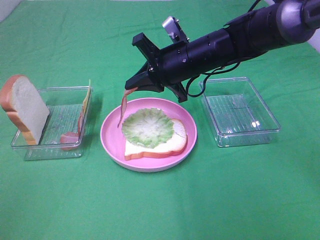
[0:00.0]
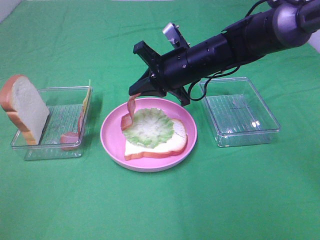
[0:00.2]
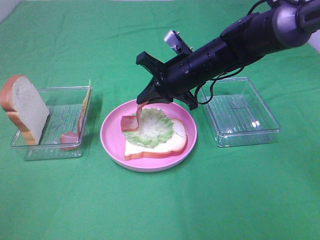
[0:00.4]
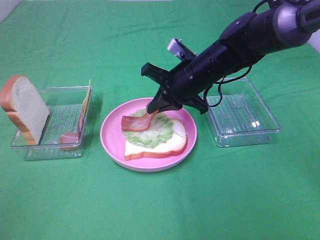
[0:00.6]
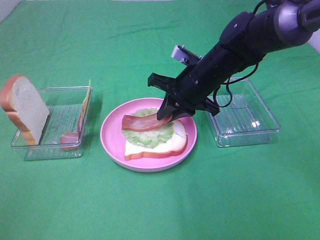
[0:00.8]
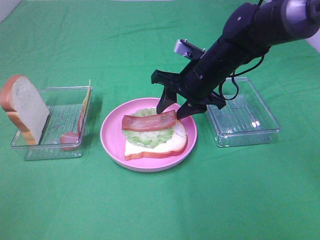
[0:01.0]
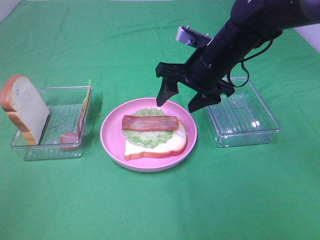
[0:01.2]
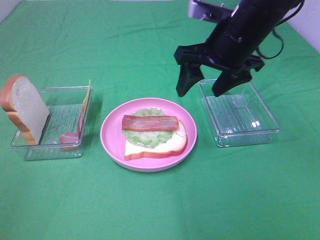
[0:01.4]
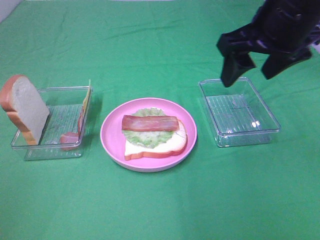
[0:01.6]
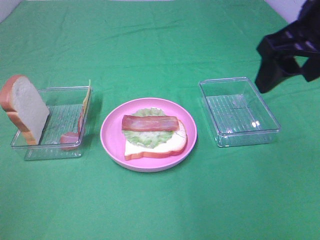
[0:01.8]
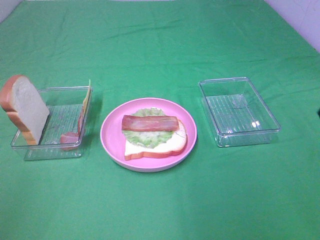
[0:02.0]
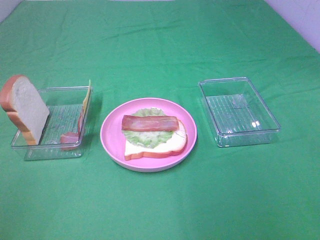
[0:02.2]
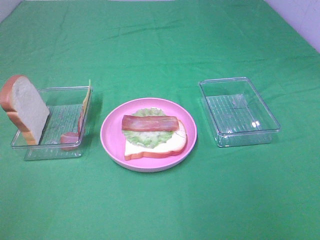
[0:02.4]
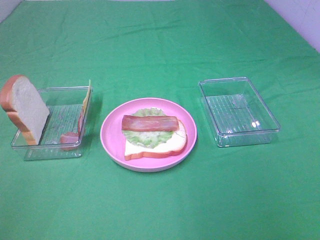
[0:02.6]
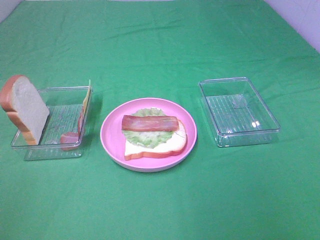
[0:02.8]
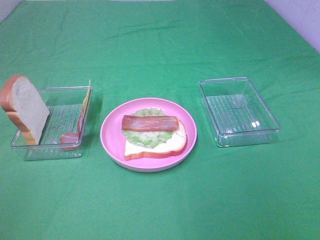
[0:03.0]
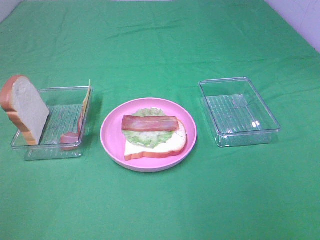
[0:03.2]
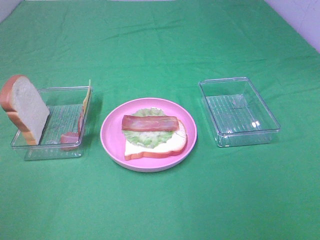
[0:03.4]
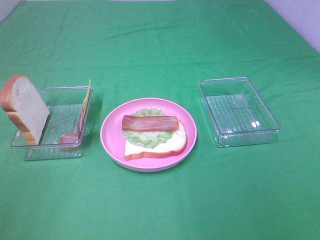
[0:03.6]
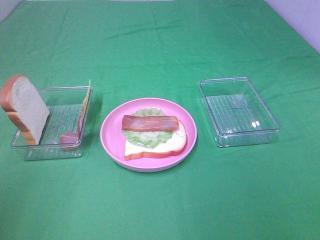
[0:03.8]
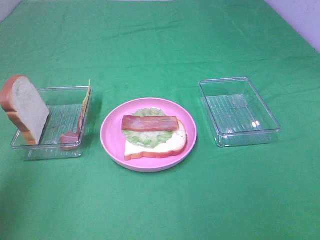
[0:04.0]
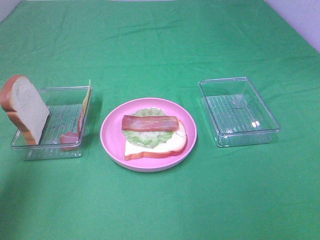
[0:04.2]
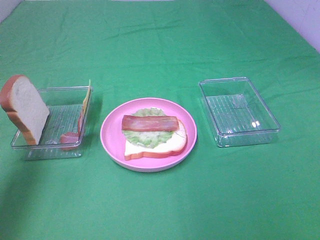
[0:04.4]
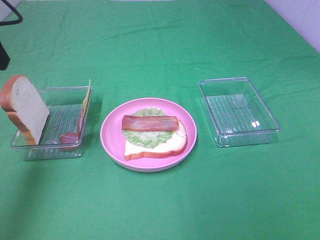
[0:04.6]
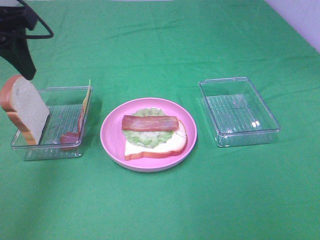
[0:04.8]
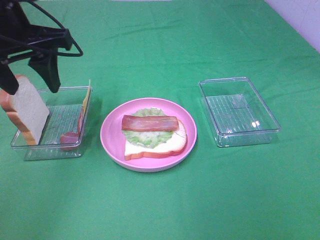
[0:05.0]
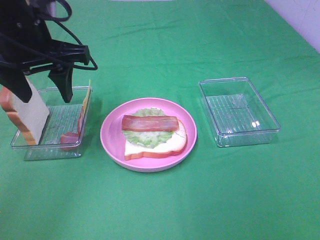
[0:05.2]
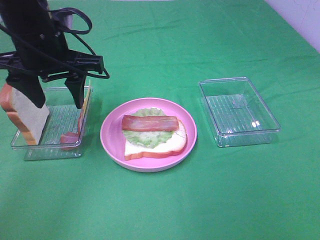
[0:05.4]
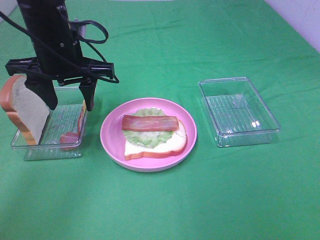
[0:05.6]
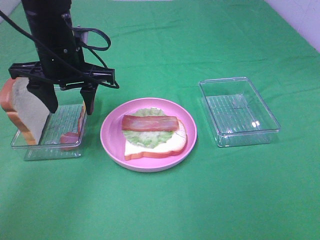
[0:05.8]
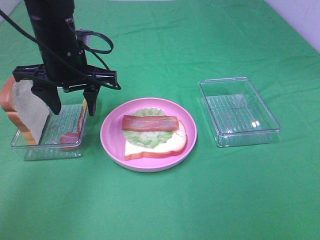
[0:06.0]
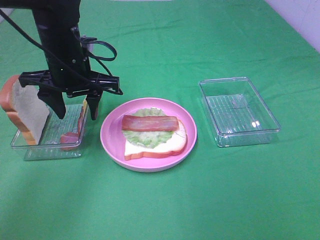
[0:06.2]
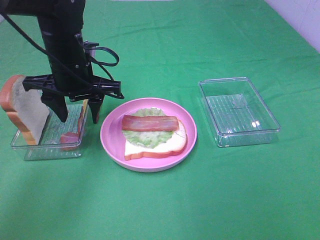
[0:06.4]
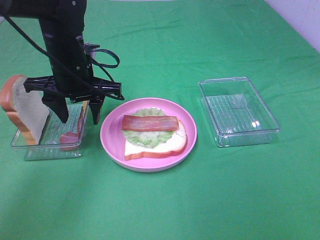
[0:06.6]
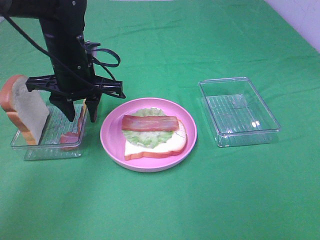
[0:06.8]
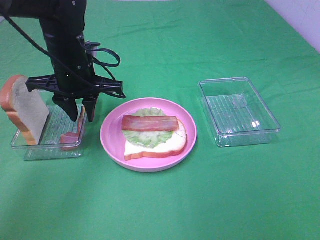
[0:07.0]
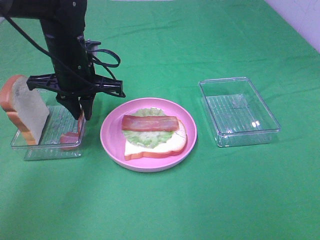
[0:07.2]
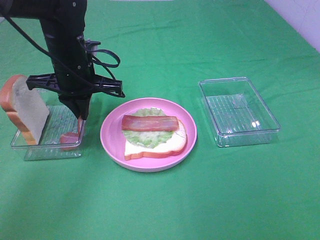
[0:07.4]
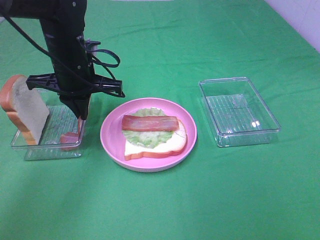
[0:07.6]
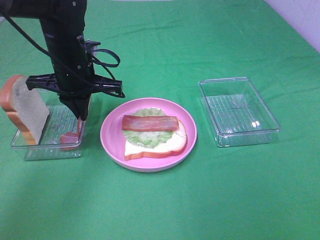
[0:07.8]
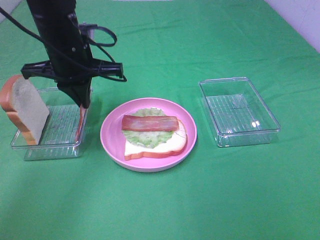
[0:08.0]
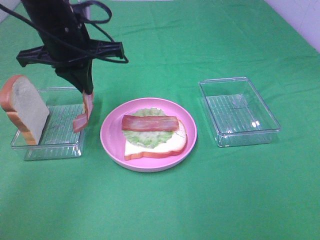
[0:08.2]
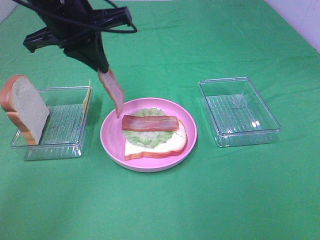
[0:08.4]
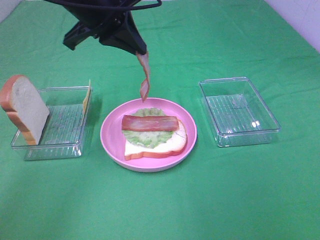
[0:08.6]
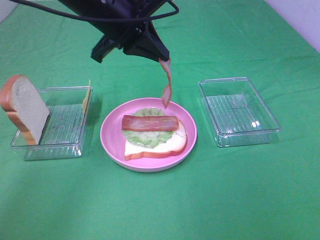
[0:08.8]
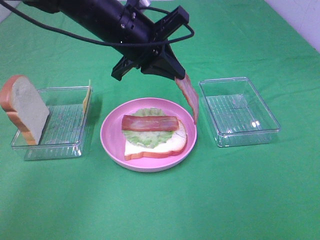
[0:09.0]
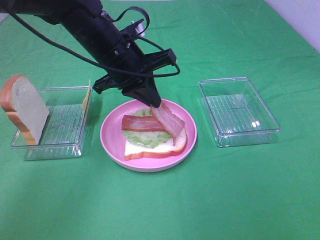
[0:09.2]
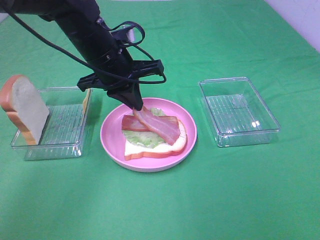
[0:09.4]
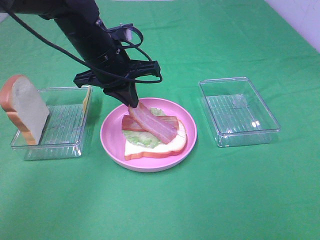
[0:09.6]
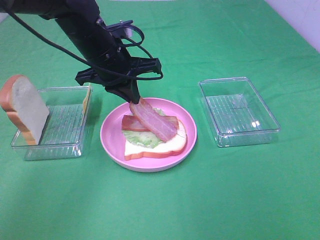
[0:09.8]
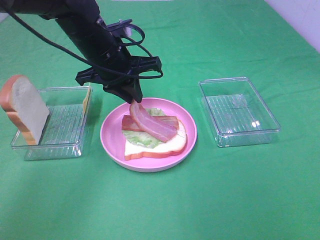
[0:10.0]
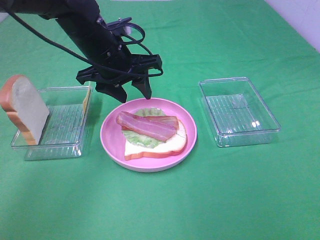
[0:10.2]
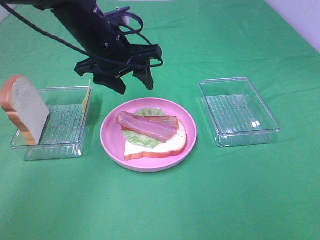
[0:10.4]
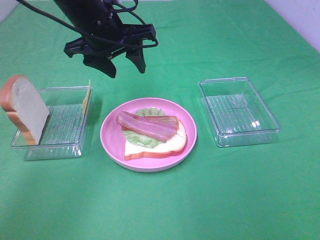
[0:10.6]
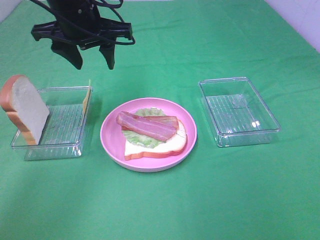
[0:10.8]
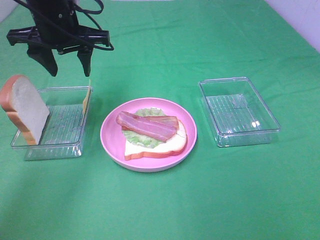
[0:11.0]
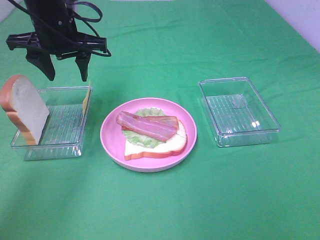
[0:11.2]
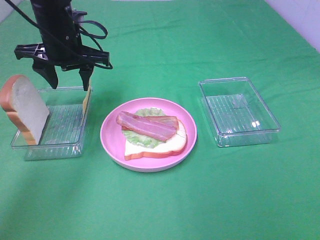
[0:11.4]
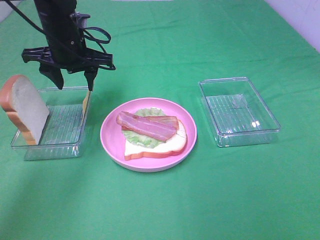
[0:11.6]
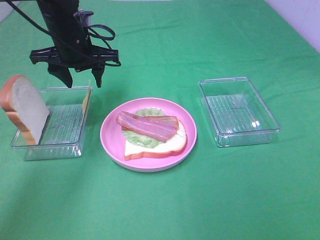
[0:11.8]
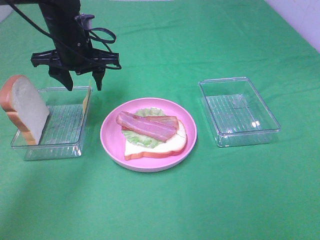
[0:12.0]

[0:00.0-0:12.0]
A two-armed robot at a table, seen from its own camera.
Task of the whole recording: Make sandwiches.
Step, 1.4 to 7.6 s: Left hand:grab the bacon.
Step, 7.8 to 10.0 s: Left hand:place bacon on bacon.
0.0 to 1.6 s: The right gripper travels upward, to the right and backward by about 20 cm, and opens its fingers.
1.6 to 3.0 s: The right gripper travels backward by about 30 cm.
3.0 to 4.4 s: The left gripper heads forward, covering roughly 25 cm.
4.4 to 6.0 s: The left gripper goes about 25 cm downward, to the right and forward.
6.0 to 7.6 s: The left gripper closes up.
7.6 to 9.0 s: The left gripper moves to the right and upward, about 10 cm.
9.0 to 10.4 s: The left gripper opens.
10.4 to 12.0 s: The left gripper heads to the left and forward, covering approximately 10 cm.

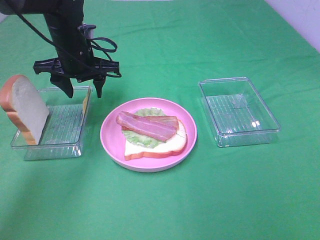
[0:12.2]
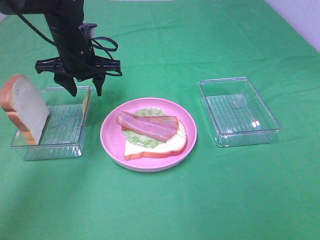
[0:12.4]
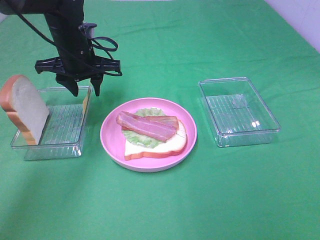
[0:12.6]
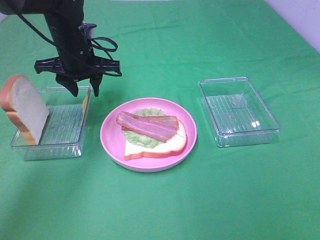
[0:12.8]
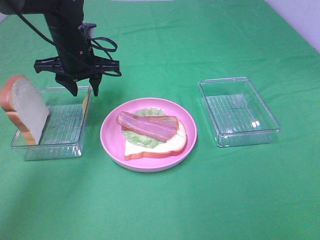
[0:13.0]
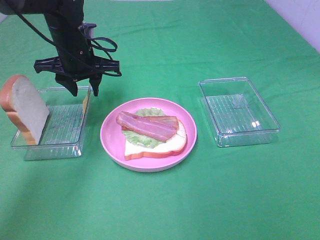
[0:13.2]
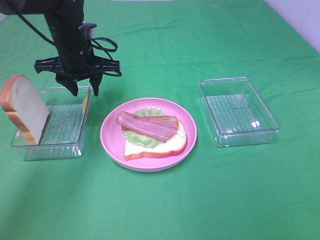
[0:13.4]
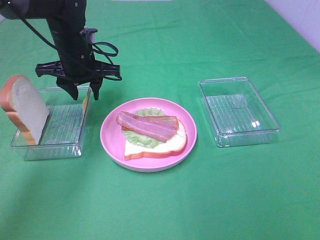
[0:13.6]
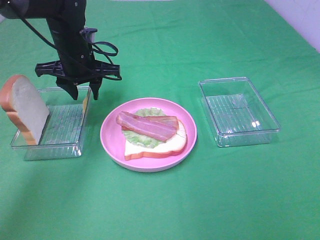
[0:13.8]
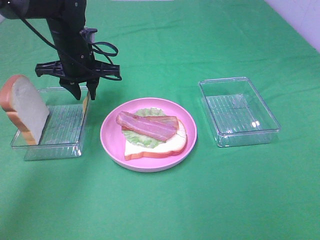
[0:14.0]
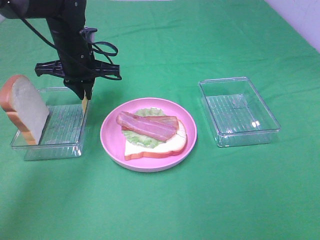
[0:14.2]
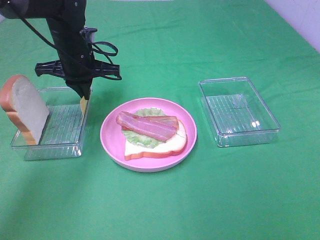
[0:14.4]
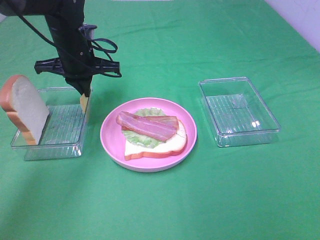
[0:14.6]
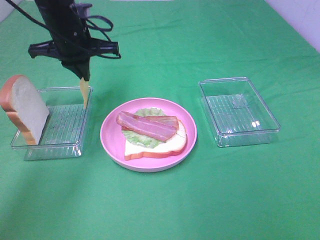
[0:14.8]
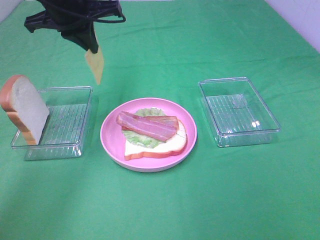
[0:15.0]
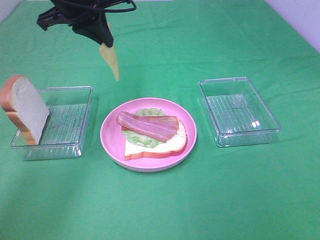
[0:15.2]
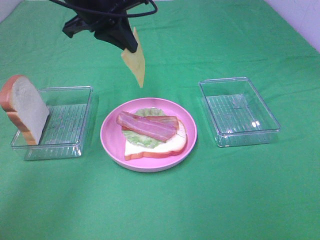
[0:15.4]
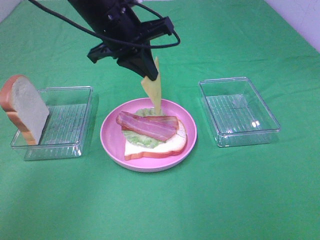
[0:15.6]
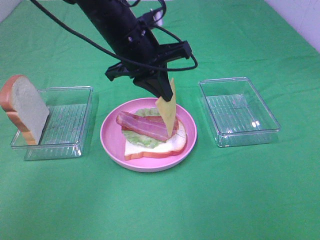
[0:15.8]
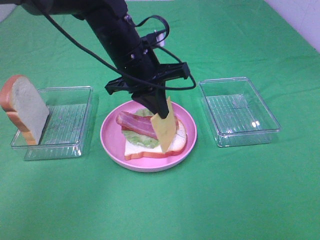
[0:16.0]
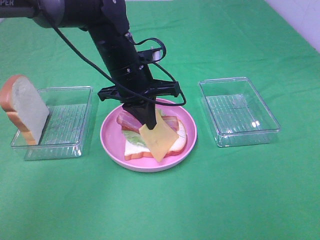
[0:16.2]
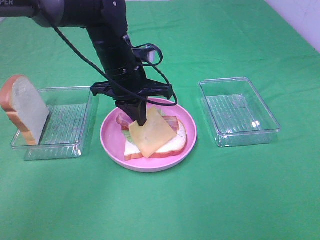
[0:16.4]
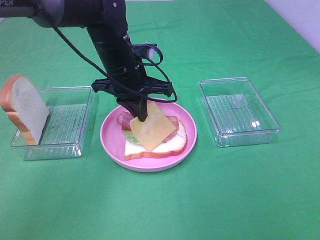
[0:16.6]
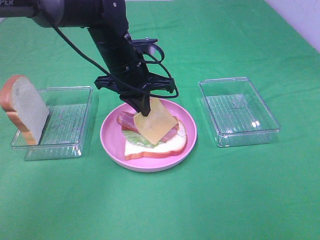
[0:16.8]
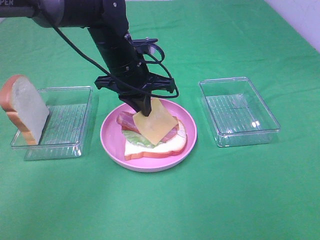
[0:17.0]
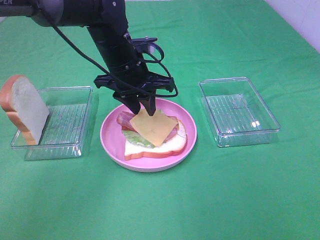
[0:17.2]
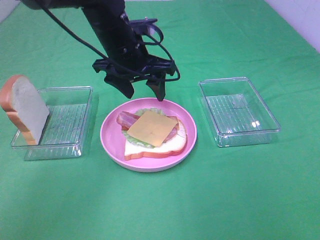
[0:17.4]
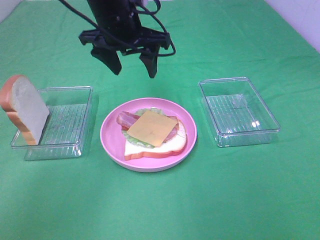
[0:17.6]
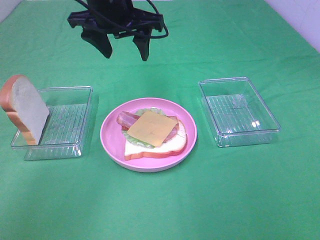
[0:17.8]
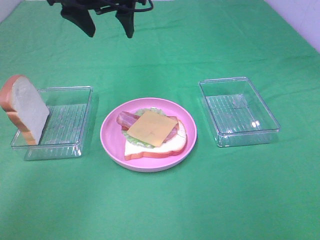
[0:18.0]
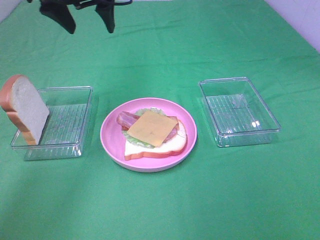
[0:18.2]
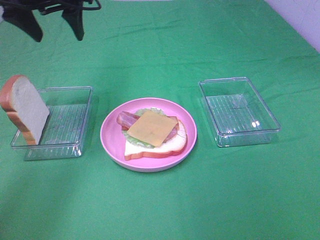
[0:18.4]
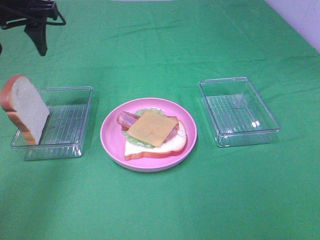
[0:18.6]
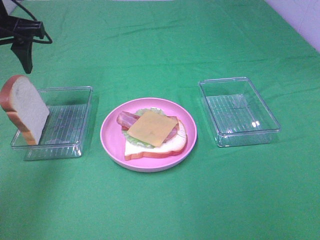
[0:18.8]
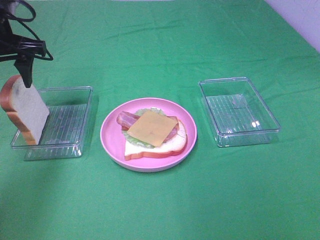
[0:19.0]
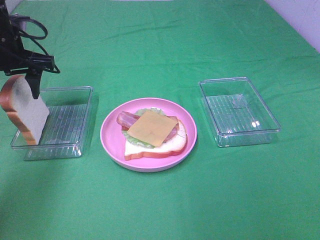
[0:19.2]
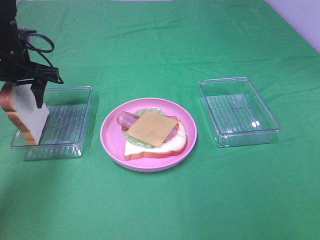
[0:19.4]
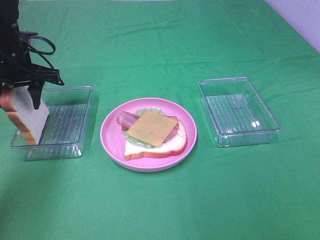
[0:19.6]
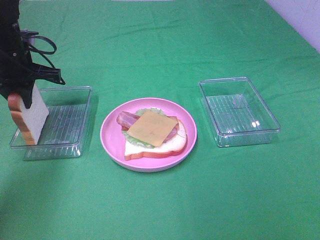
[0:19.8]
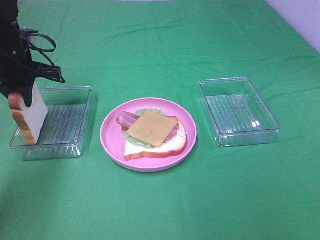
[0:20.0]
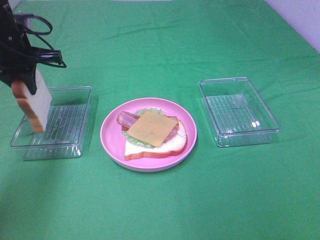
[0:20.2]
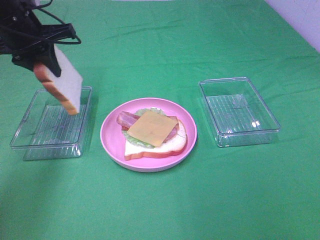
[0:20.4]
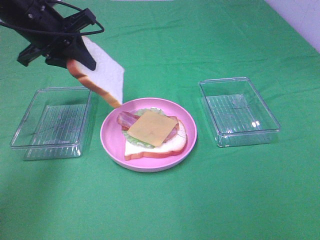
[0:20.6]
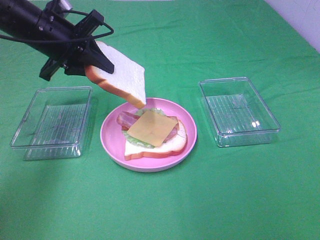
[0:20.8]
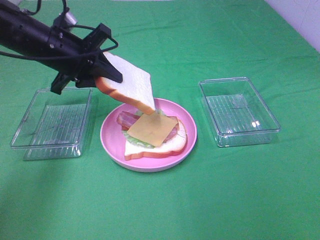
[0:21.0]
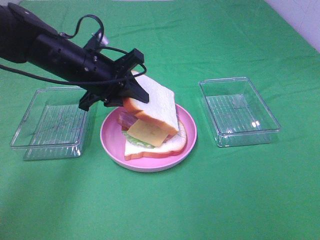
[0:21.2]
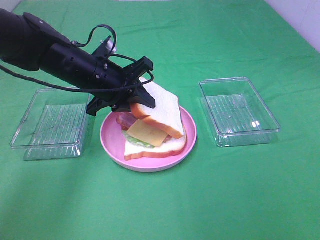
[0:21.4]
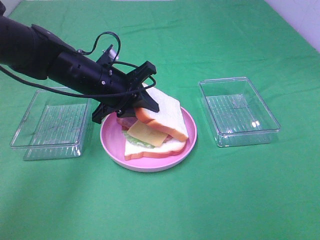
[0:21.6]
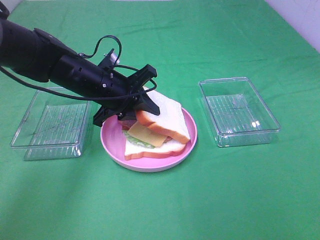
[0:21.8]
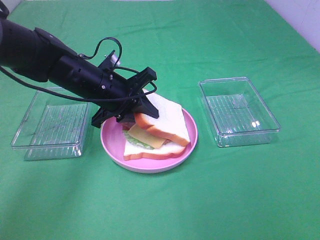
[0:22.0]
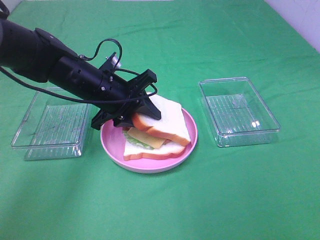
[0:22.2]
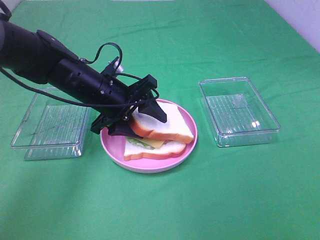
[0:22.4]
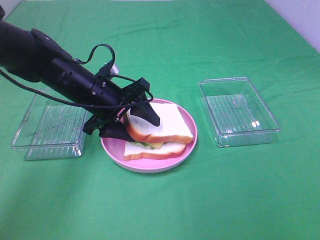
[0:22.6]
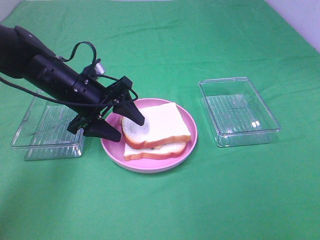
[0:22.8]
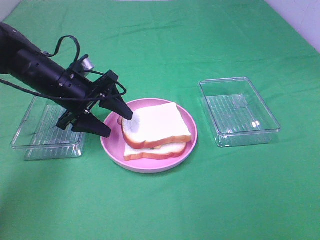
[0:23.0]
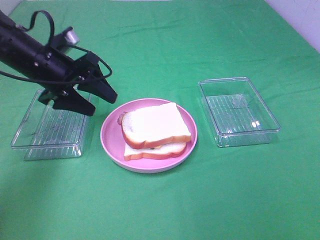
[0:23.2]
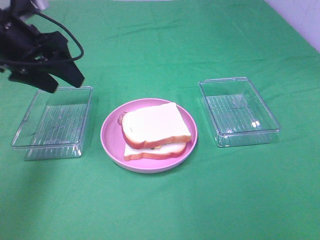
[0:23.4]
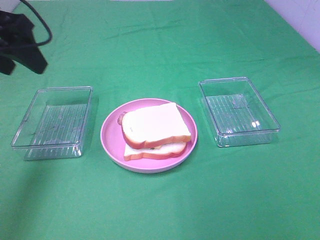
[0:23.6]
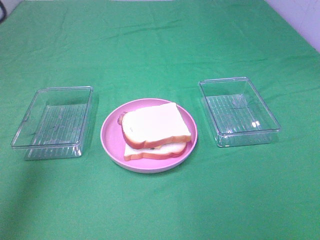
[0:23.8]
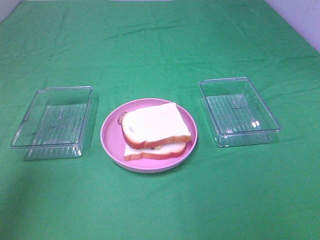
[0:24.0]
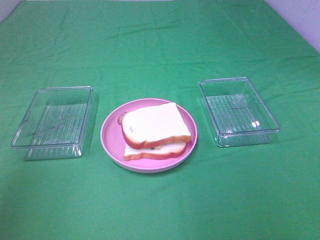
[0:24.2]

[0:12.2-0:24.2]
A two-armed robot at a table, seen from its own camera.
Task of the whole recording: Make sandwiches.
Step, 12.2 to 14.6 s: Left hand:grab the cheese slice.
Step, 14.8 to 17.4 s: Left hand:place the cheese slice on top of the bacon.
Step, 17.6 to 20.0 s: Left hand:grab the bread slice.
Step, 20.2 to 22.8 s: Left hand:place the bread slice on the cheese slice.
12.2 to 13.8 s: The two grippers keep their place.
13.8 to 15.2 s: The left gripper travels upward by some 15 cm, and closes its fingers.
15.2 to 16.6 s: The left gripper is displaced downward and to the right by about 15 cm.
16.6 to 18.2 s: The left gripper moves upward and to the left, some 20 cm, and opens up.
18.2 to 19.8 s: The left gripper goes roughly 20 cm downward and to the left, and closes up.
19.8 to 21.2 s: The left gripper travels to the right by approximately 15 cm.
21.2 to 22.6 s: The left gripper opens up.
22.6 to 24.2 s: The left gripper is displaced upward, backward and to the left by roughly 40 cm.
